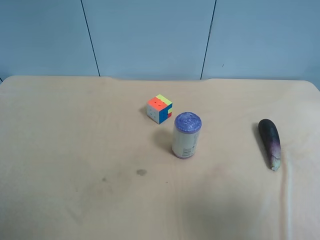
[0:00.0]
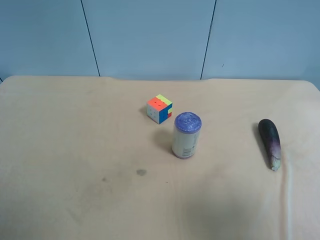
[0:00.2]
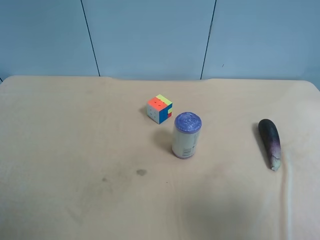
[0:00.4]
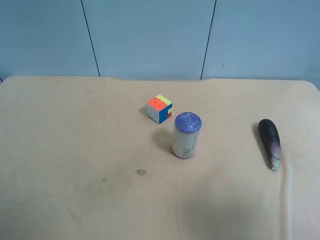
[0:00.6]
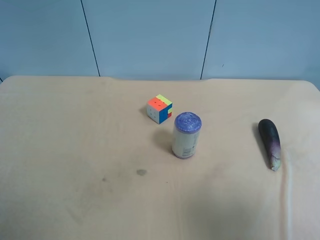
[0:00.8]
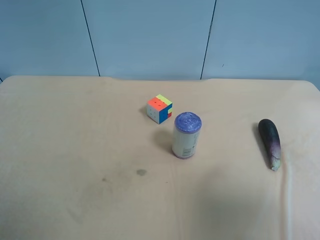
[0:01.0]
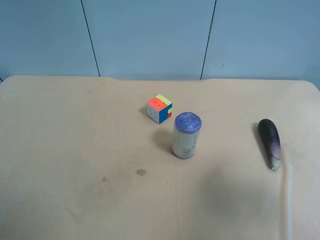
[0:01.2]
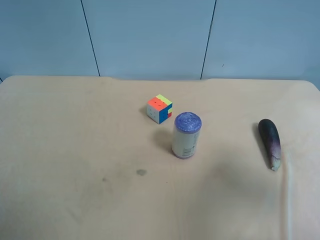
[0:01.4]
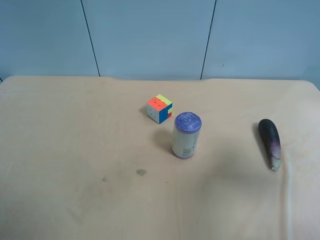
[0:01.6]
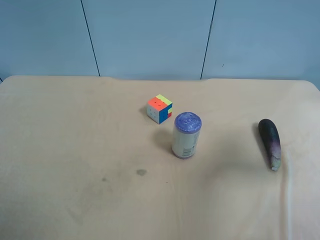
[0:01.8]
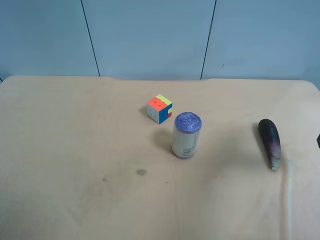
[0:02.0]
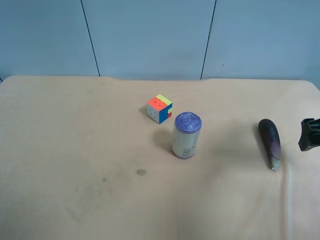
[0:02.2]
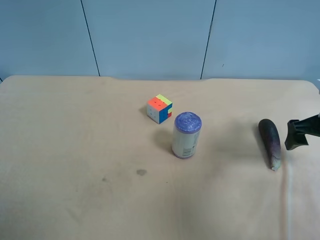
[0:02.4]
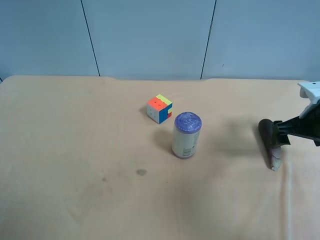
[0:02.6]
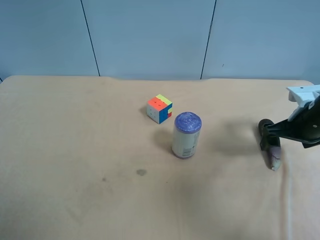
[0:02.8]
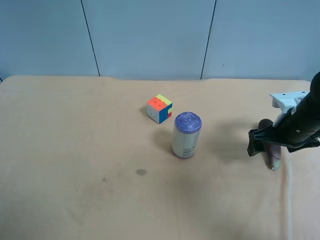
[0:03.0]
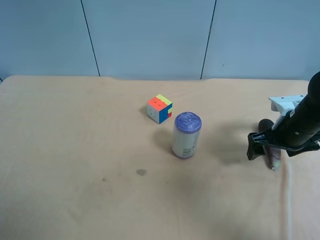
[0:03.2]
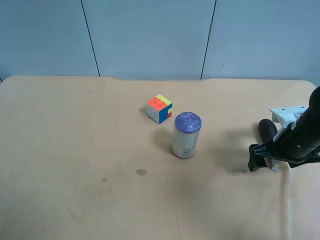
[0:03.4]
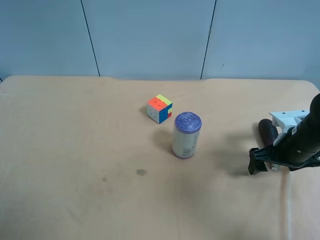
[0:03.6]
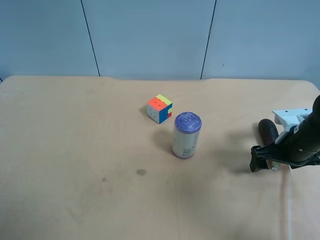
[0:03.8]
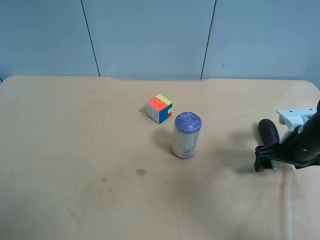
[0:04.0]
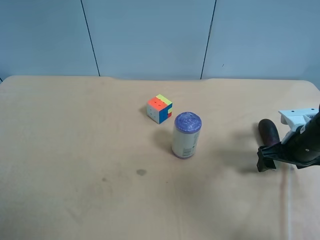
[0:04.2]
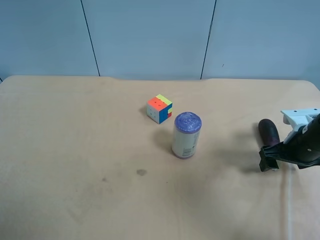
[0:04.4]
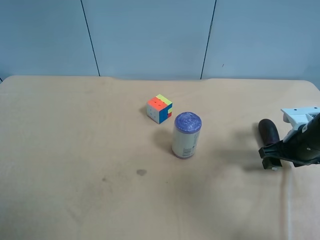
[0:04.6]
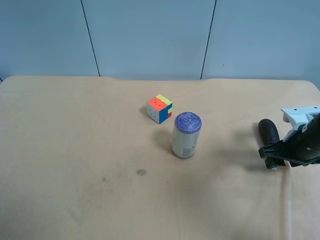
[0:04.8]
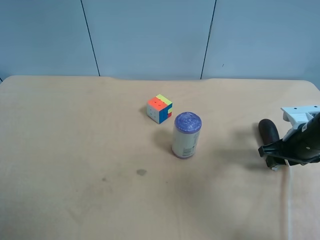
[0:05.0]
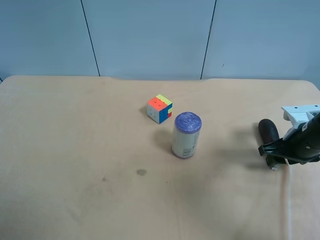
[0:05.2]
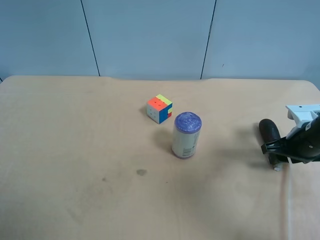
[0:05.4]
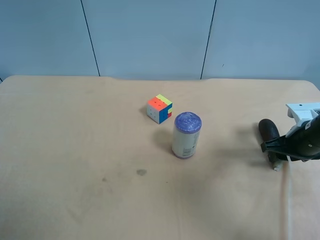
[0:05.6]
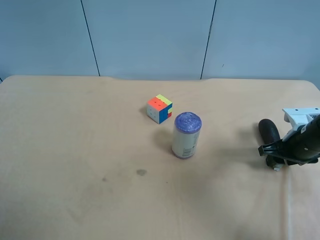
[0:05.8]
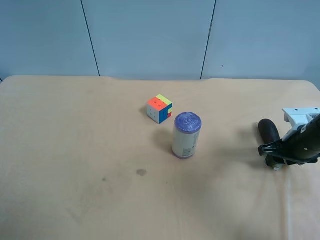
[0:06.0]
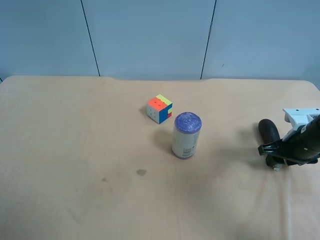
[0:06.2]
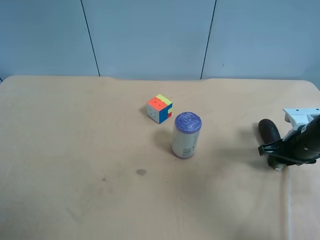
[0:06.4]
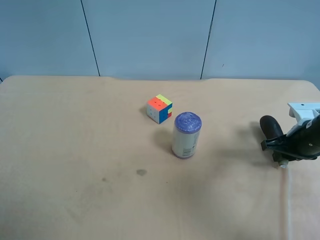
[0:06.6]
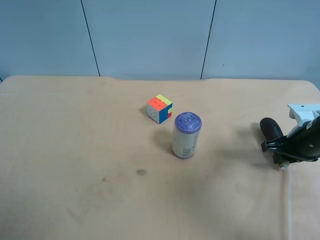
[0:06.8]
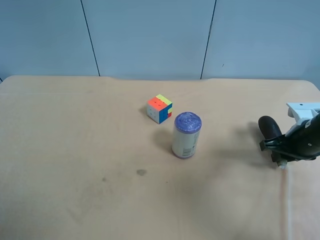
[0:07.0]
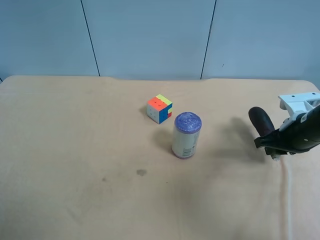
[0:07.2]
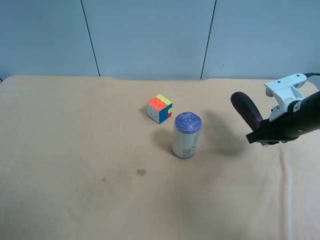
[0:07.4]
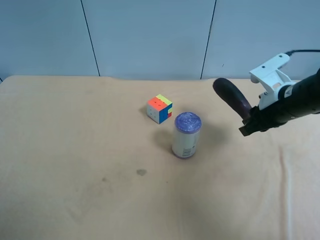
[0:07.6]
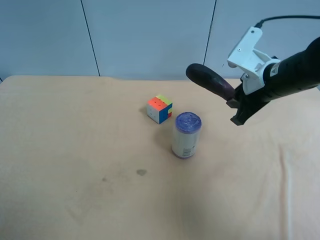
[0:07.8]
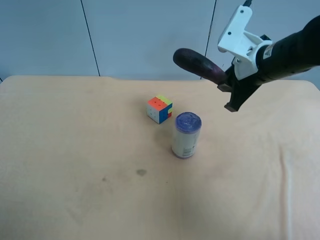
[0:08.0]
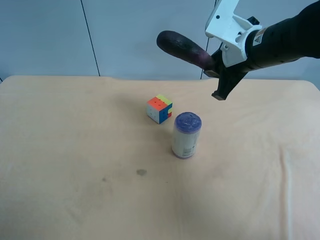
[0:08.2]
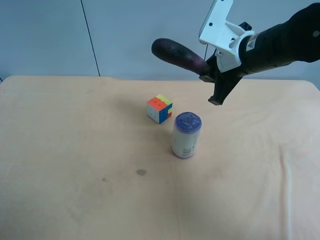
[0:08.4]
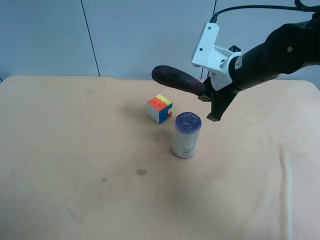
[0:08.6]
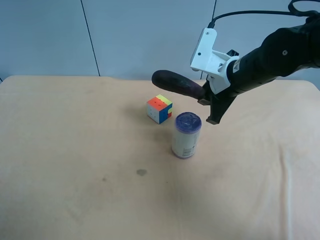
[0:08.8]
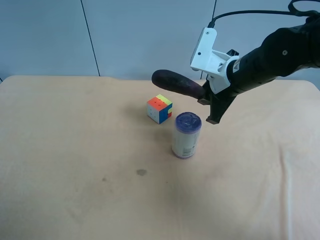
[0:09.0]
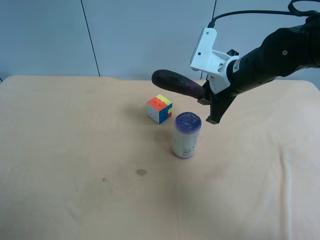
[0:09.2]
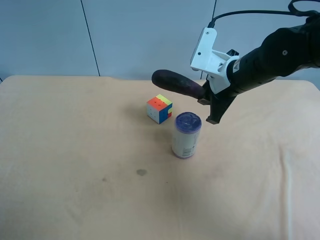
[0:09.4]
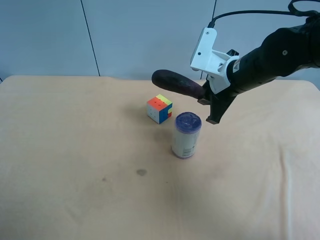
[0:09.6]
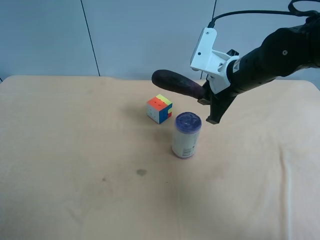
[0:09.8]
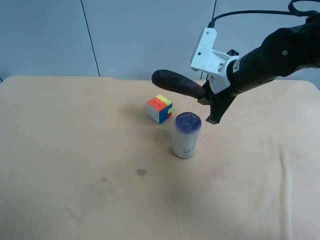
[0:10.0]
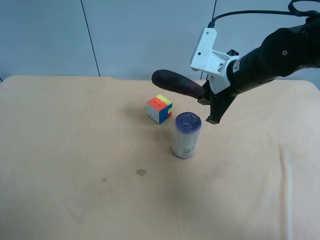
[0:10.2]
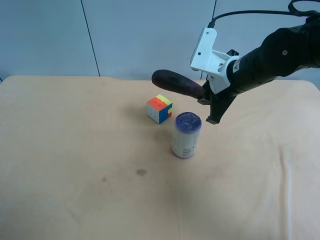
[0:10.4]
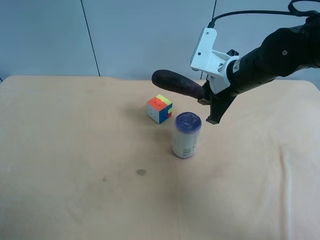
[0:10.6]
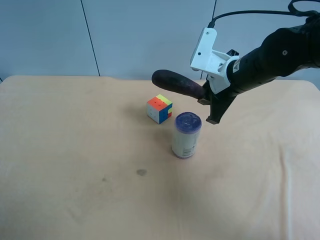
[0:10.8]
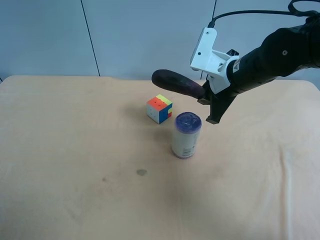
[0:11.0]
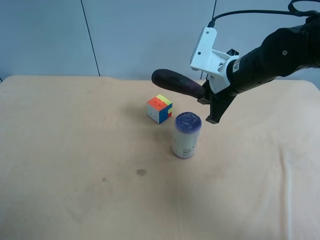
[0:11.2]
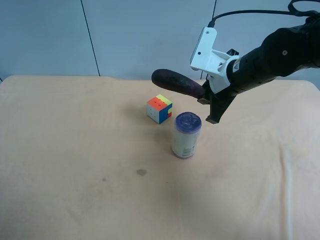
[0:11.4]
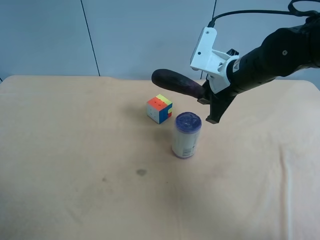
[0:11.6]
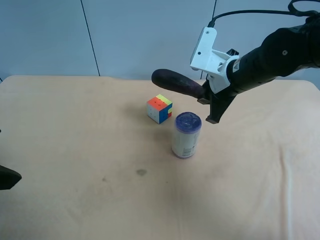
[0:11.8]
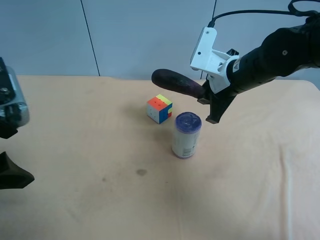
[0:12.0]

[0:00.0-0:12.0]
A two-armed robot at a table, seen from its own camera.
Task of the whole recording: use the right gripper to pick up the item and transfer it from the right gripper to the left gripper.
0:00.0 to 0:01.6: The right gripper shifts some 15 cm forward.
0:01.6 to 0:03.0: The right gripper moves downward and forward, about 20 cm.
0:03.0 to 0:04.4: The grippers move only a little.
0:04.4 to 0:06.0: The right gripper closes up.
0:06.0 to 0:07.6: The right gripper travels upward and to the left by some 10 cm.
0:07.6 to 0:09.0: The right gripper is displaced to the left by some 10 cm.
0:09.0 to 0:10.4: Neither gripper changes place.
0:10.4 to 0:12.0: The left gripper moves forward and to the right, roughly 15 cm.

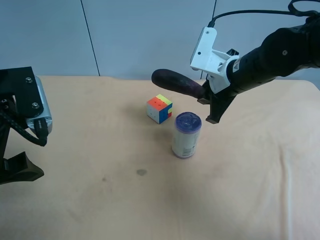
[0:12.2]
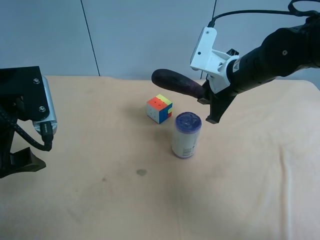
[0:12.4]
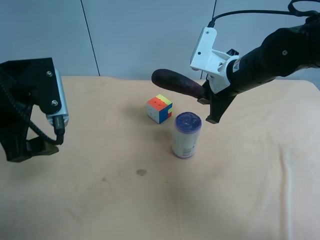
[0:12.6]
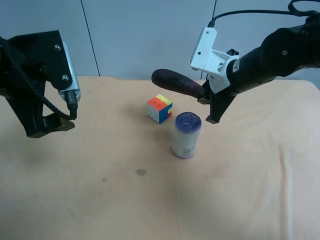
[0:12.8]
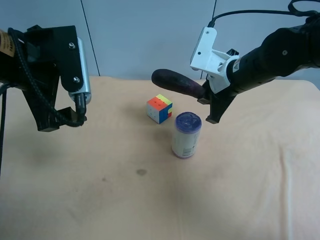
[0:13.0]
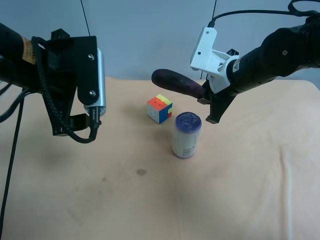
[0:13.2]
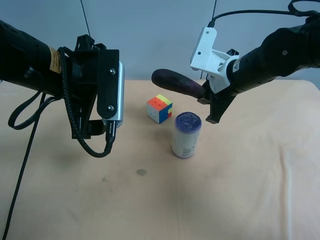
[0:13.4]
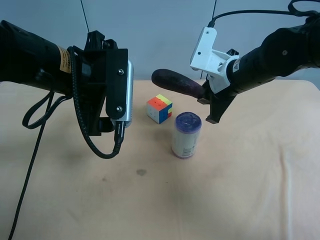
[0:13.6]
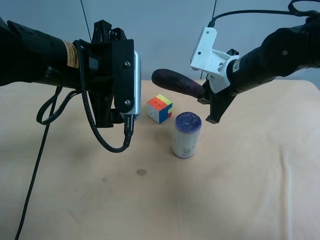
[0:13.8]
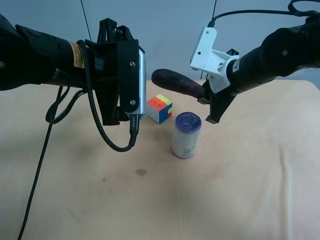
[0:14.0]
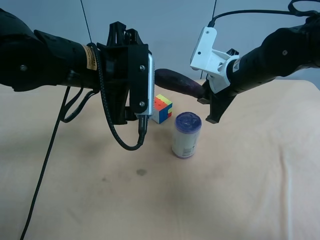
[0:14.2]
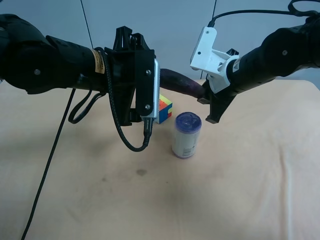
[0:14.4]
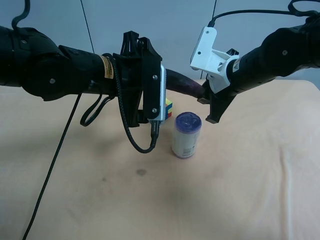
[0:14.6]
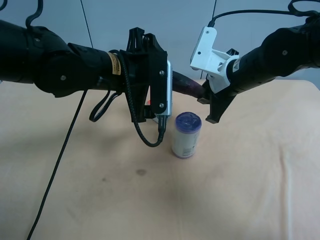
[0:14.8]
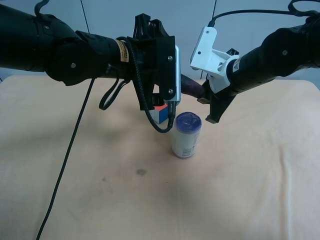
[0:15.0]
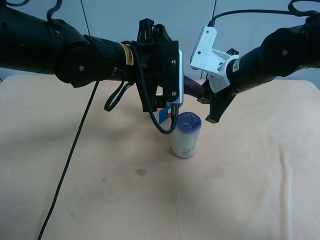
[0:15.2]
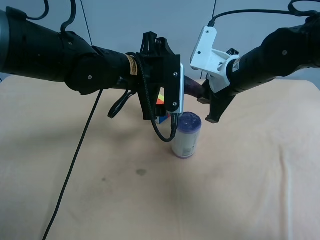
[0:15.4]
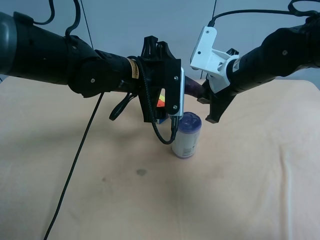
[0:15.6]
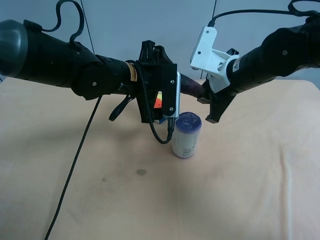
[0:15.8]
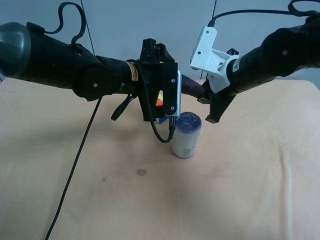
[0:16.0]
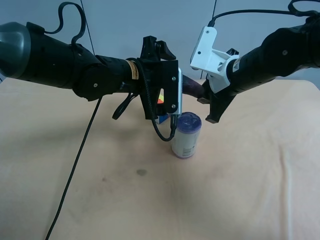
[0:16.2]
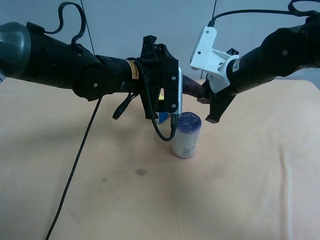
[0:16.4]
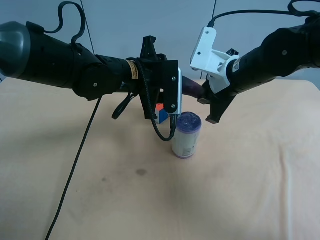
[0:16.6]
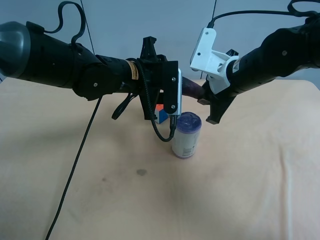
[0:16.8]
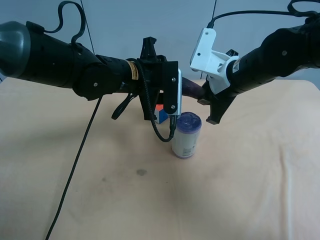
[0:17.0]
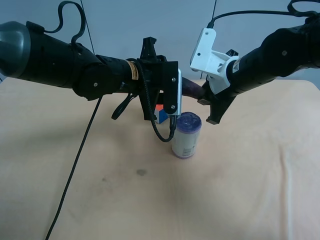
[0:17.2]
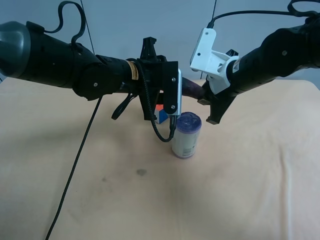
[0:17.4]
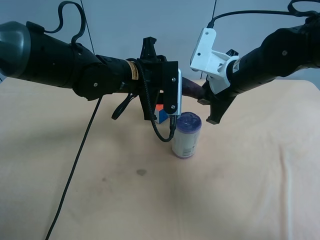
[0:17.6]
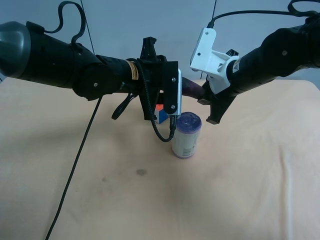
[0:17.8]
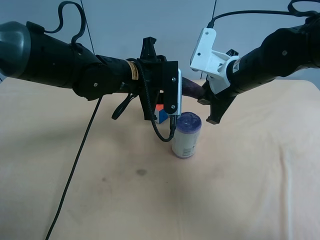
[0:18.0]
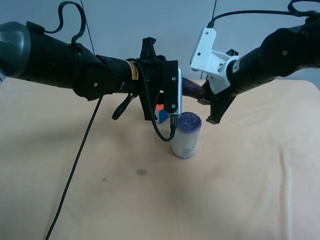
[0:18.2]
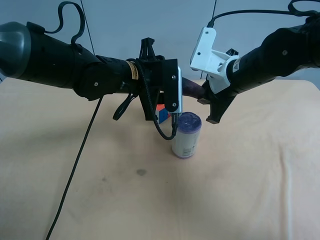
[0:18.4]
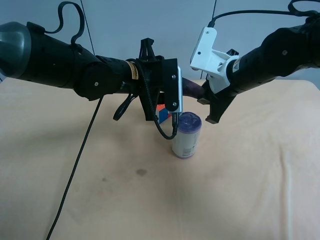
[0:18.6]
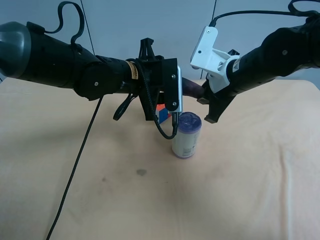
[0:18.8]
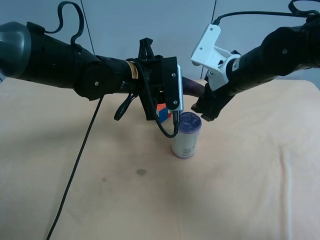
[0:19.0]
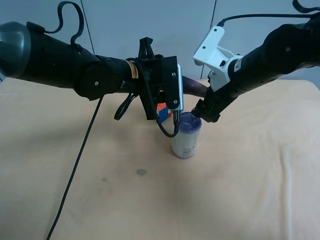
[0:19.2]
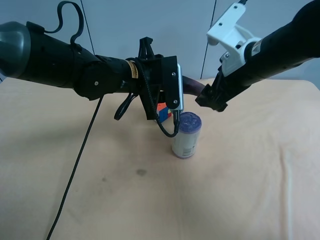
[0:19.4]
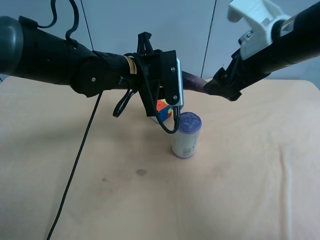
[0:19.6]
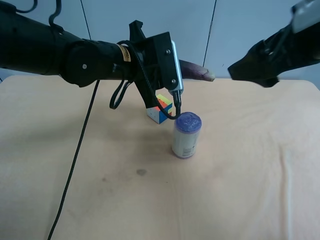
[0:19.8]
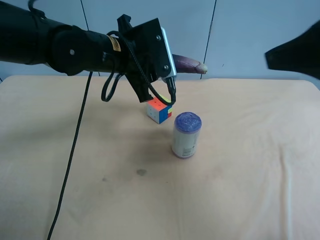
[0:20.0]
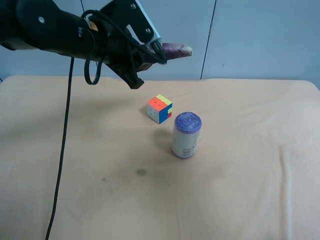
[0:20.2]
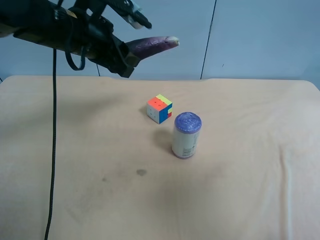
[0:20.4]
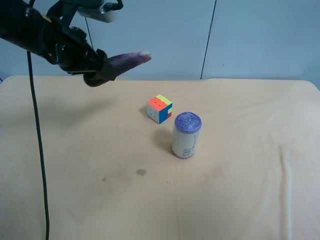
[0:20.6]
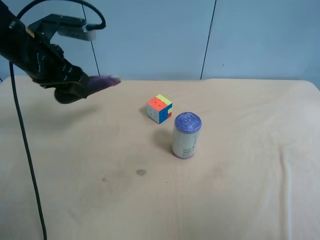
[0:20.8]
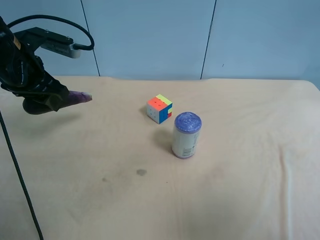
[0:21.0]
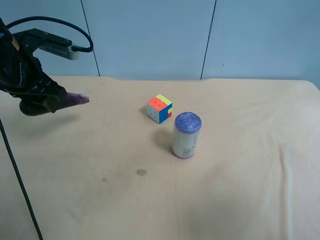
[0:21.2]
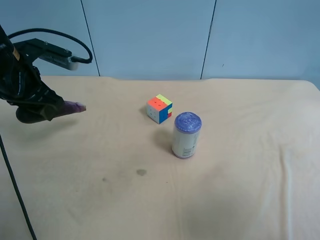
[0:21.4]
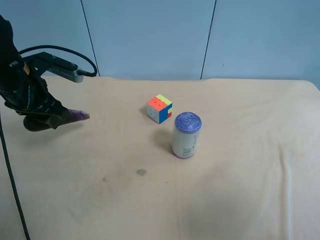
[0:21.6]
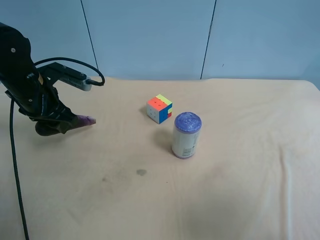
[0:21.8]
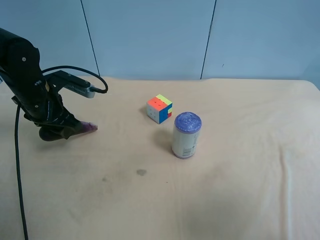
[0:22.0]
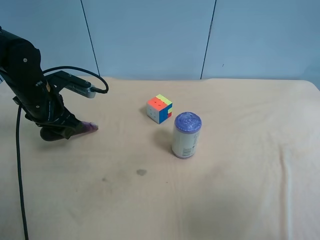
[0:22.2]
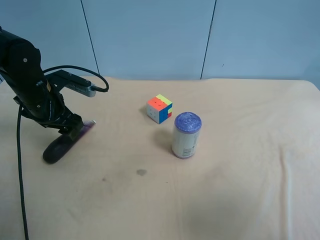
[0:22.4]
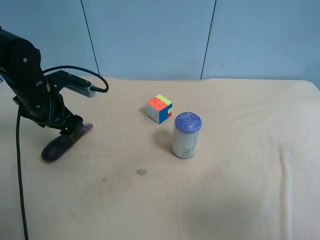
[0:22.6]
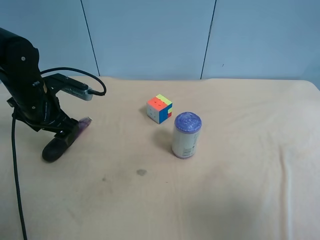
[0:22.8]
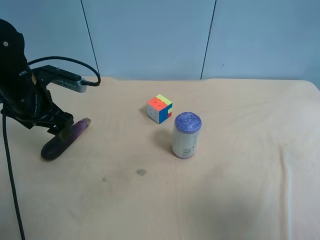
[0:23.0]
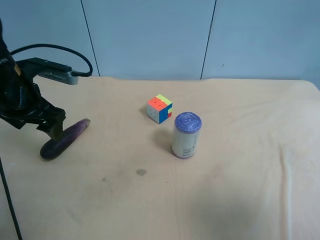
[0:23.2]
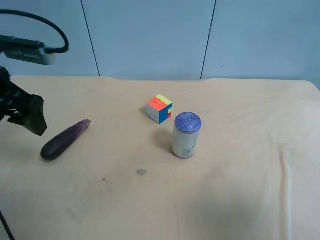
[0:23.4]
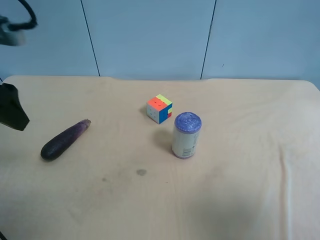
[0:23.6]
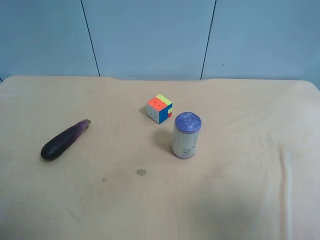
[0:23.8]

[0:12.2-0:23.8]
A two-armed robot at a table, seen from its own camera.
Task of the whole recording: use the right gripper to pick up the item and transfer it from the right gripper to the left gripper.
0:12.2 to 0:13.6: The left gripper heads to the right and forward, covering approximately 10 cm.
0:13.6 to 0:15.0: The left gripper is displaced to the right and forward by some 10 cm.
0:15.0 to 0:16.6: The left gripper ends up some 5 cm from where it was, and closes.
0:16.6 to 0:18.0: Both grippers stay put.
0:18.0 to 0:19.4: The right gripper shifts roughly 5 cm upward, and opens.
0:19.4 to 0:21.0: The left gripper heads to the left, covering some 20 cm, while the right gripper moves backward and to the right, approximately 35 cm.
0:21.0 to 0:22.4: The left gripper travels downward by about 10 cm, and opens.
0:22.4 to 0:23.8: The left gripper shifts some 25 cm upward and backward.
